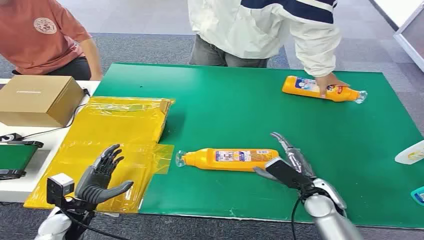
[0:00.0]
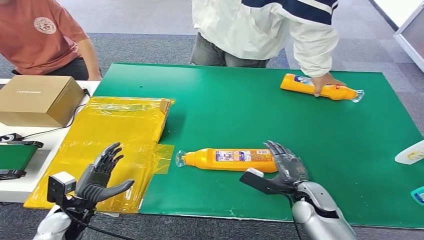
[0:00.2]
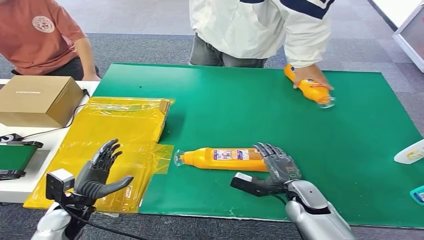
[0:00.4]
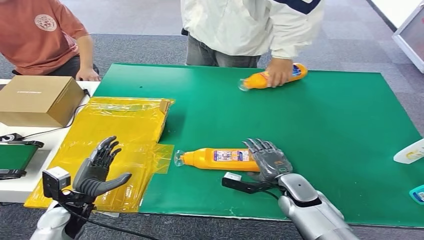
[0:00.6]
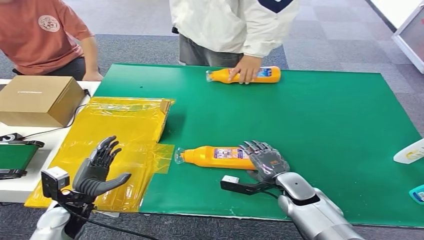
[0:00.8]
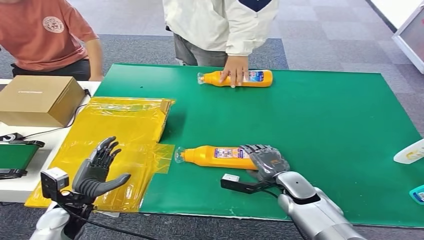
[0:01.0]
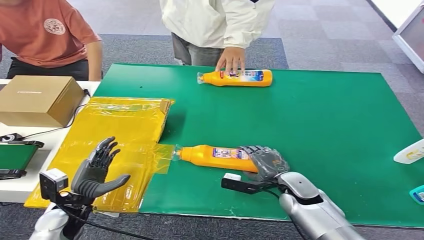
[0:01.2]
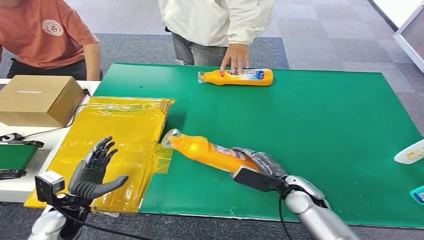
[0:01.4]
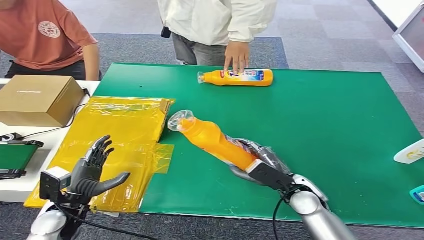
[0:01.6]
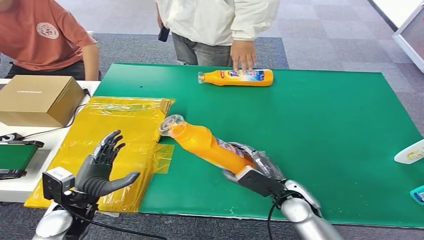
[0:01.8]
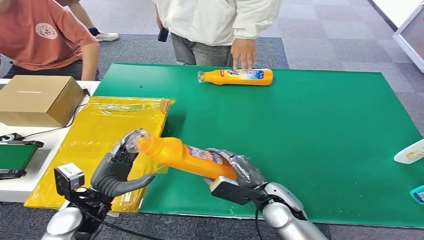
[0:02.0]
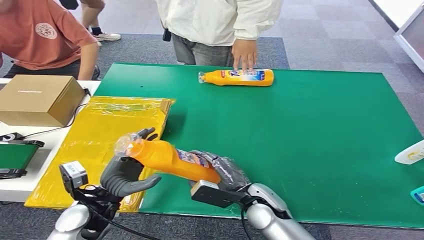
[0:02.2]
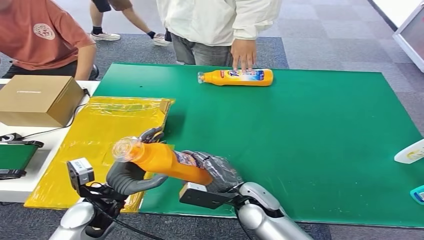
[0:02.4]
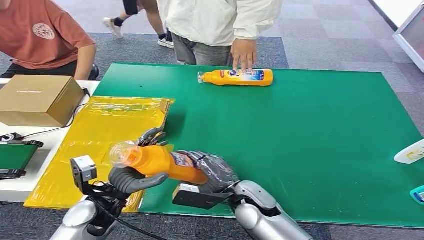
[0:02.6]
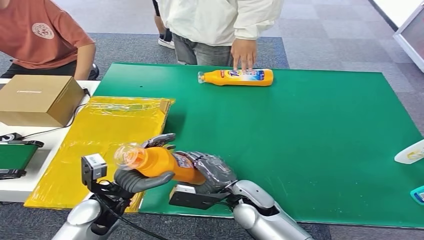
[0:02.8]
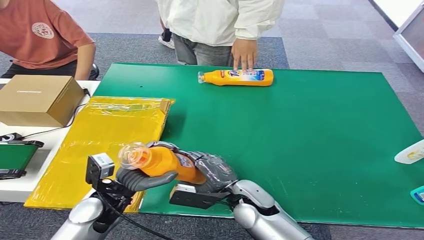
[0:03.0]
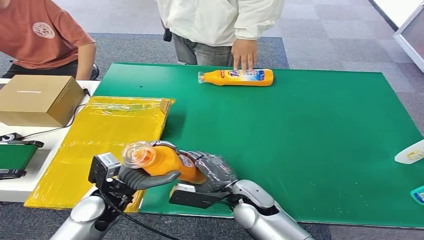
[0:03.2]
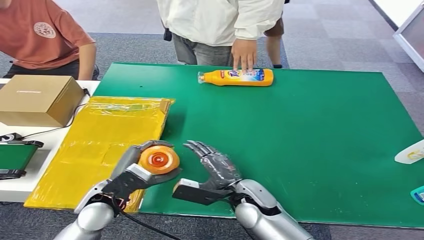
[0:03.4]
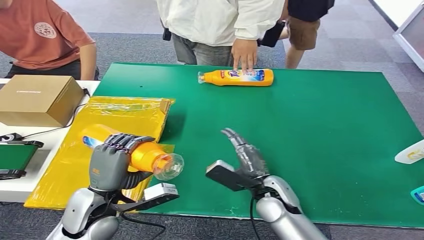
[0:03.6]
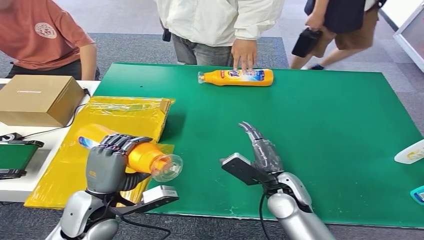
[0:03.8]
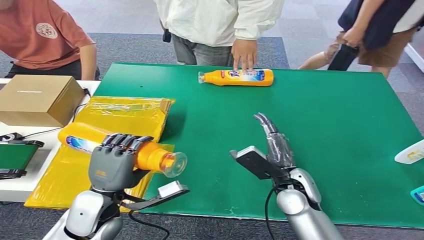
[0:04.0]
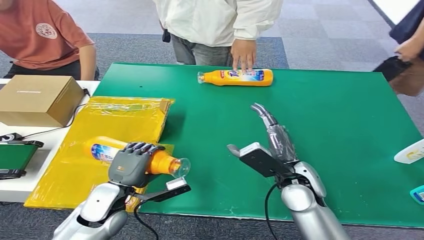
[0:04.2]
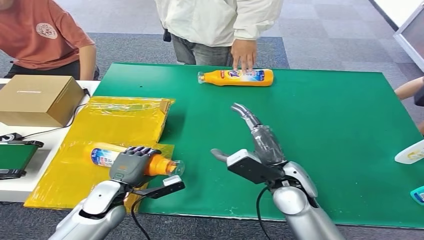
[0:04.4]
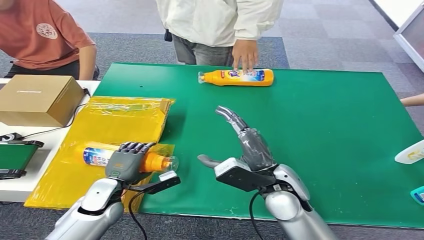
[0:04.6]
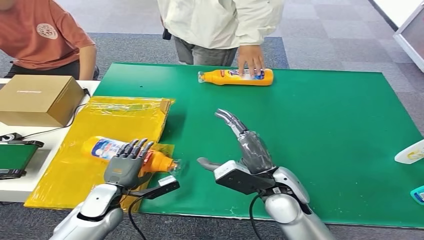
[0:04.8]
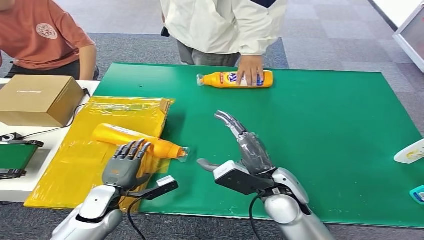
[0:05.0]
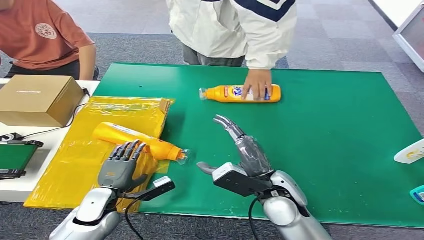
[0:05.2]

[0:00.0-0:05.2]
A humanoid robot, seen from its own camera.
Step, 0:00.0 to 0:01.8: Pick up the bottle from the table.
Step, 0:02.0 to 0:05.2: Turn the bottle to the front side.

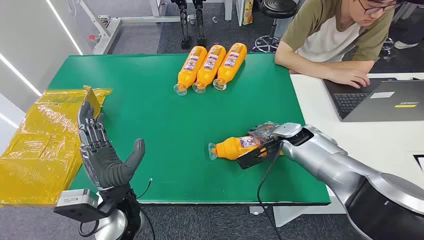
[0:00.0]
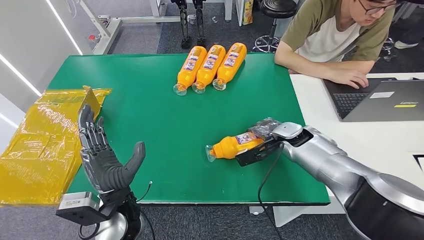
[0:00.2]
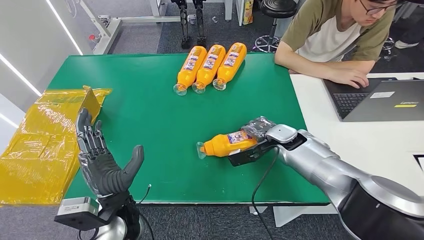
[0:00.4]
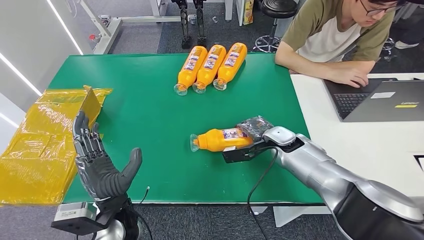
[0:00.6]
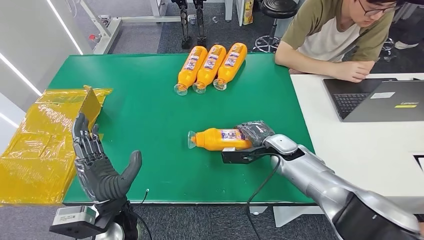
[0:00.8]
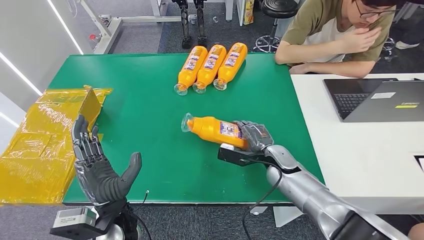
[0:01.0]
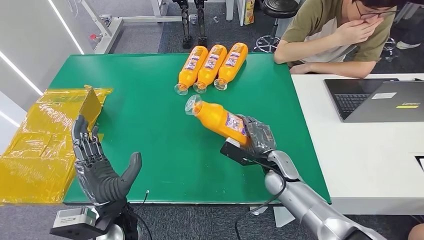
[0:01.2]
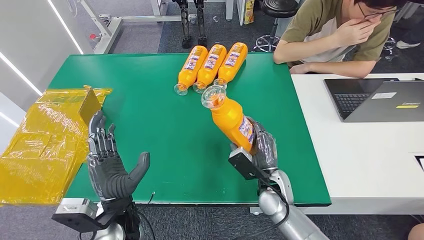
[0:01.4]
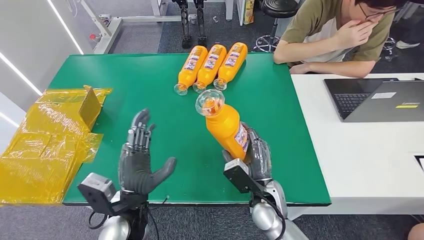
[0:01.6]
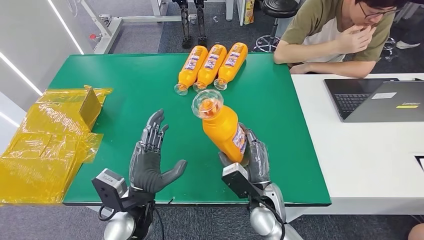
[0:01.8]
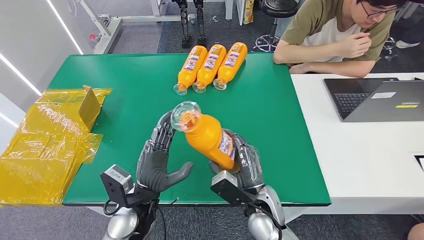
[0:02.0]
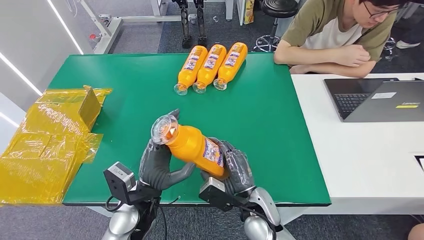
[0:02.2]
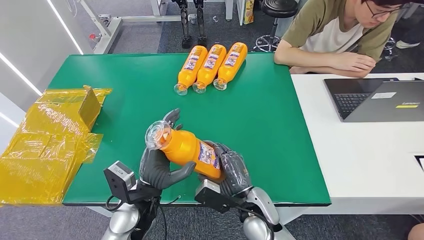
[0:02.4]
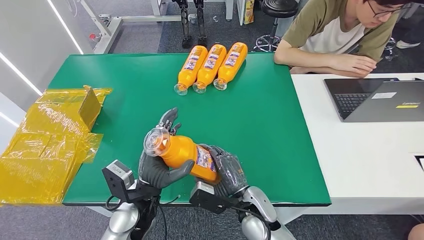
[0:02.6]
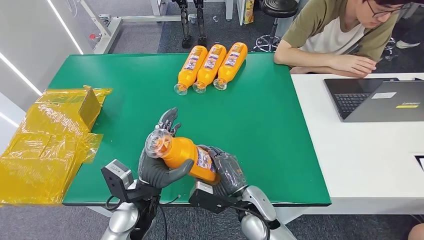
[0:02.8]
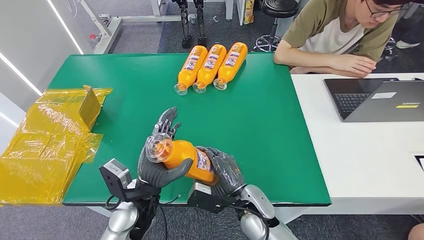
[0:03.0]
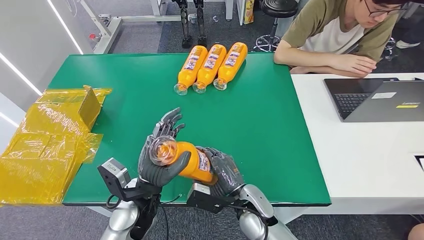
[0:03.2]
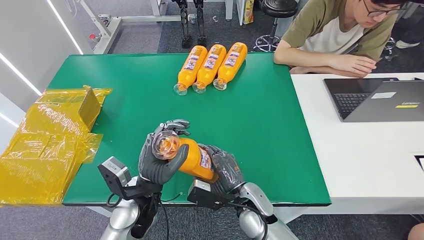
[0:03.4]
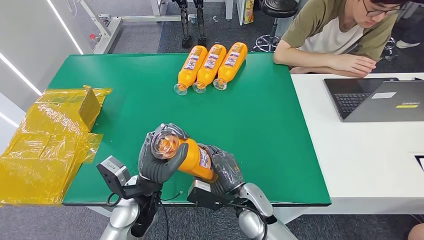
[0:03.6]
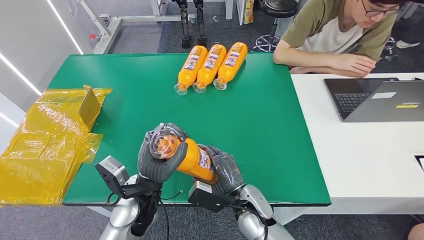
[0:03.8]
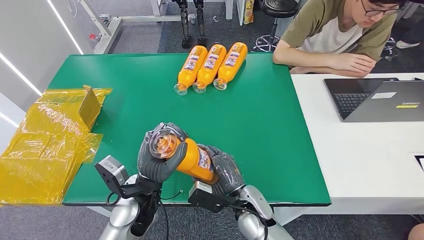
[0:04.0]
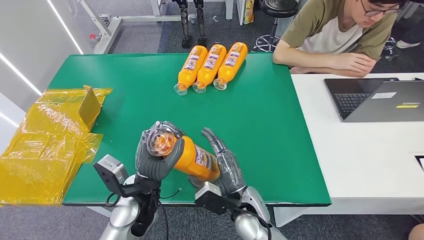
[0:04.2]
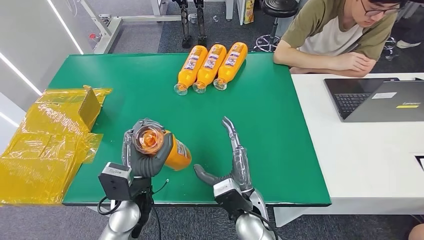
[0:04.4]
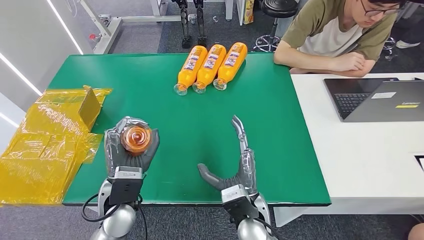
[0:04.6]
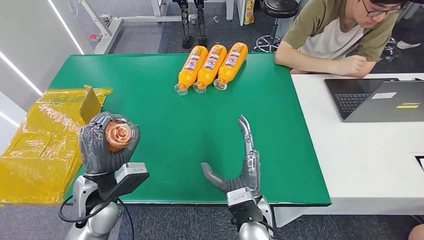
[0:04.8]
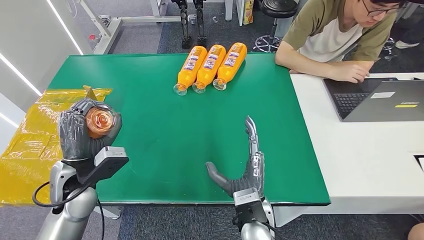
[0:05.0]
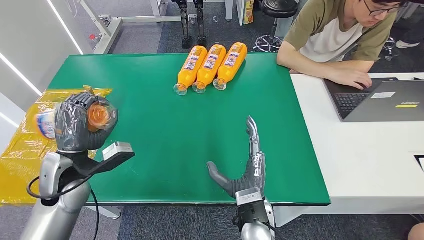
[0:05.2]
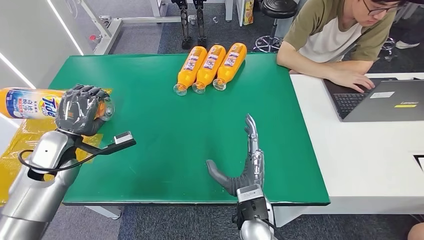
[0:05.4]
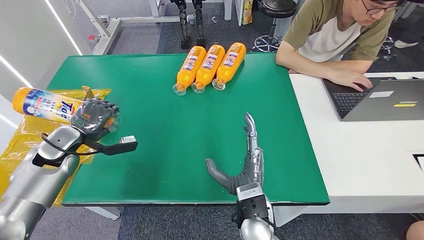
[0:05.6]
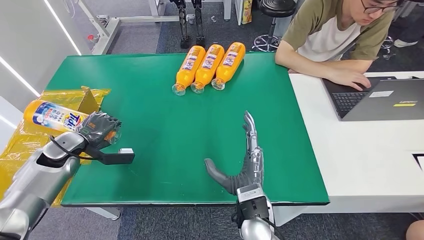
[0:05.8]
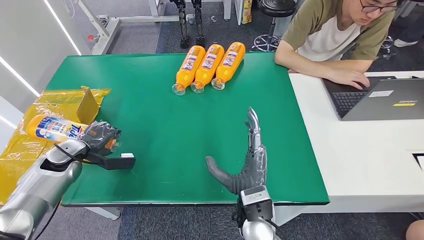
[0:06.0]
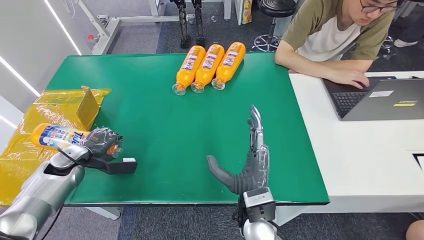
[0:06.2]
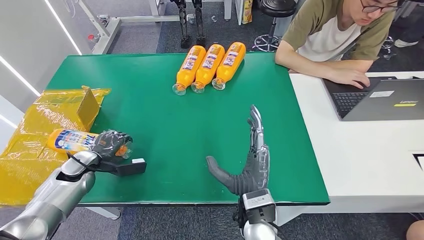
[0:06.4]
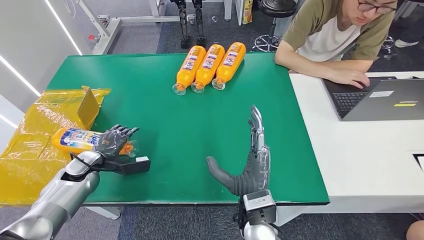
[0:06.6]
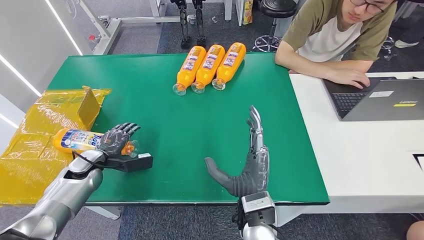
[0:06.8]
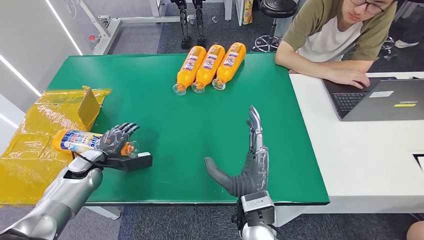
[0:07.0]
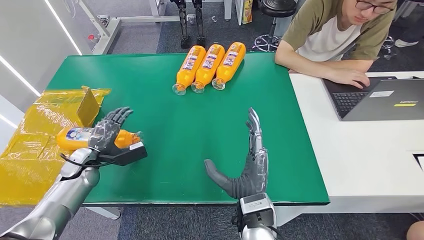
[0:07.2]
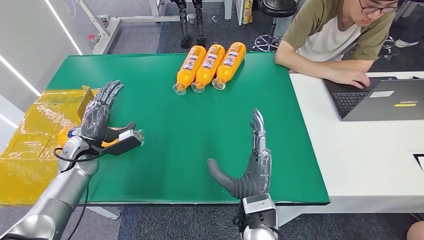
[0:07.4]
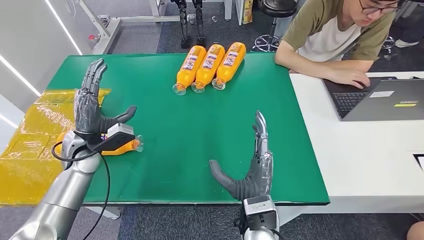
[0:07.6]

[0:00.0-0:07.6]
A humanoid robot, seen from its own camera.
Step, 0:00.0 to 0:02.6: Pick up the bottle from the table.
Step, 0:02.8 to 0:07.4: Turn the bottle to the front side.
0:06.0 to 0:07.6: The left hand shifts approximately 10 cm to the right.
